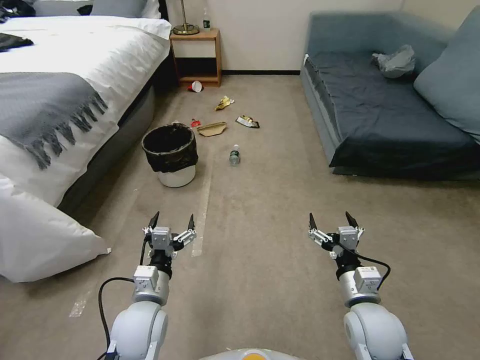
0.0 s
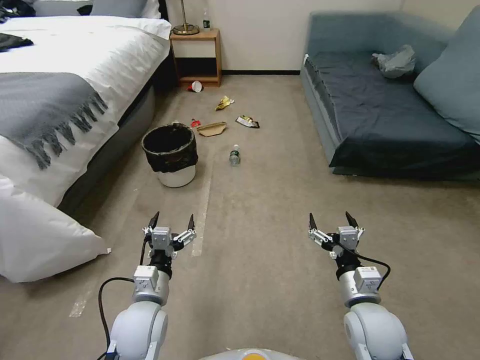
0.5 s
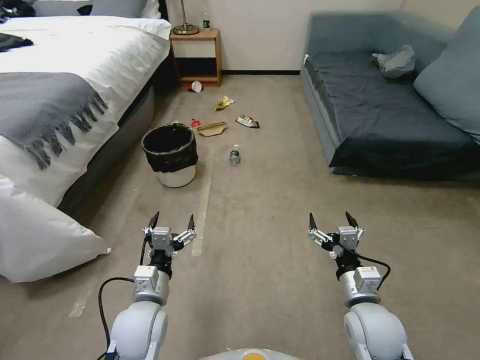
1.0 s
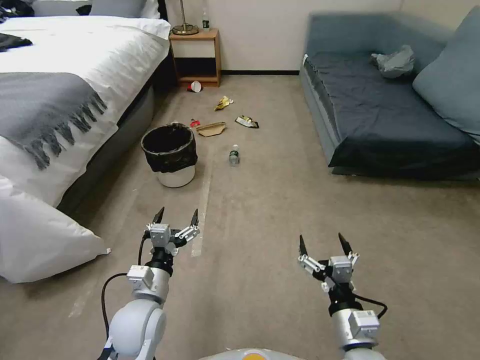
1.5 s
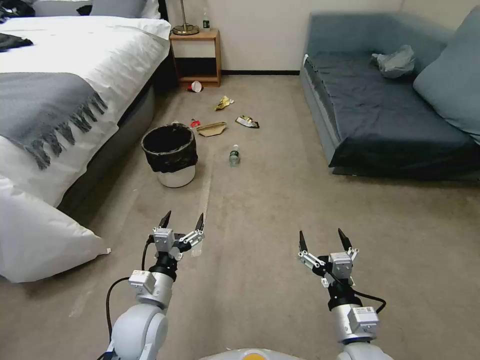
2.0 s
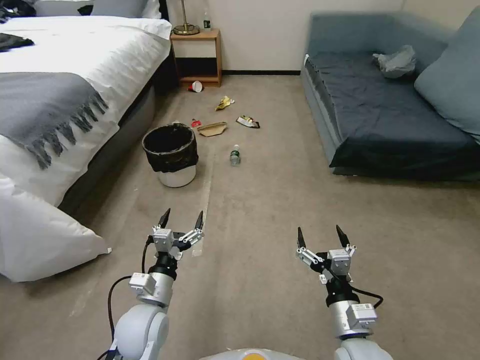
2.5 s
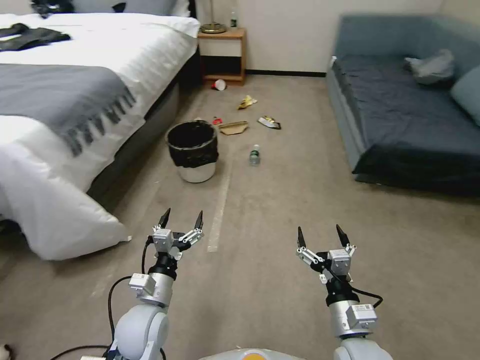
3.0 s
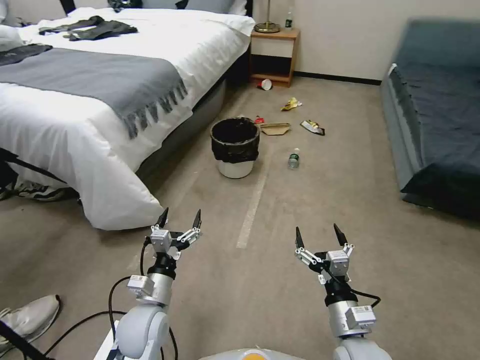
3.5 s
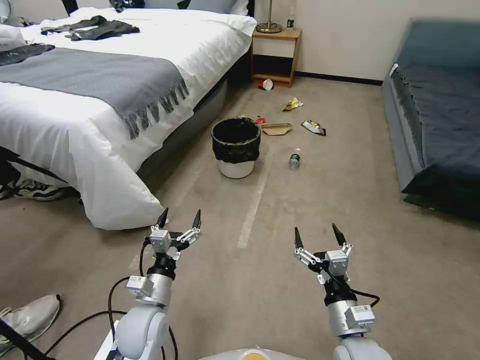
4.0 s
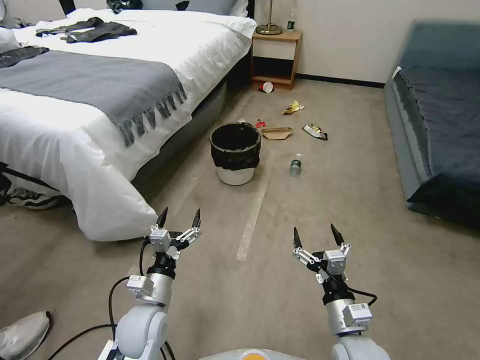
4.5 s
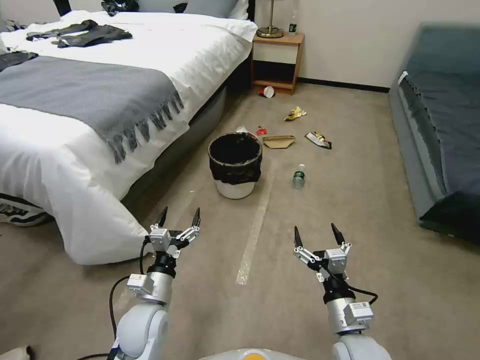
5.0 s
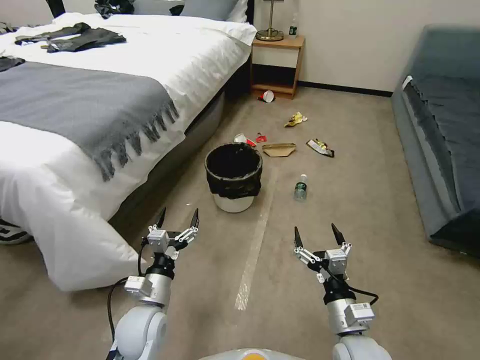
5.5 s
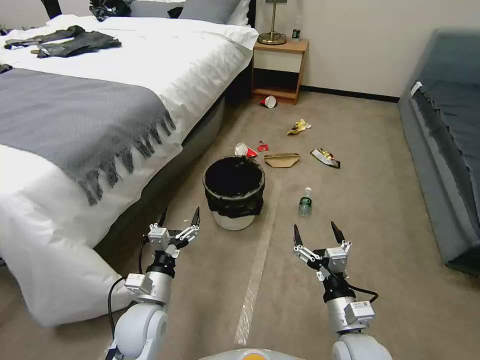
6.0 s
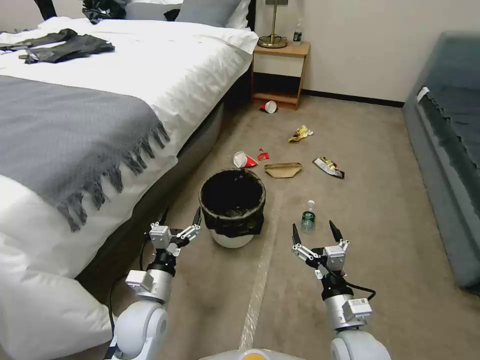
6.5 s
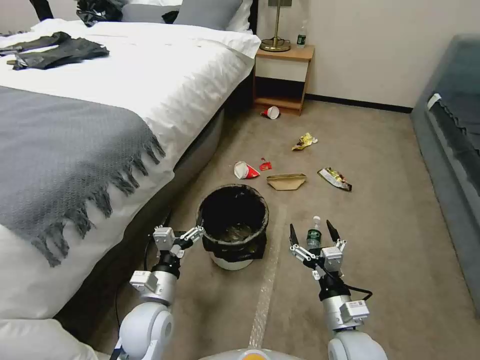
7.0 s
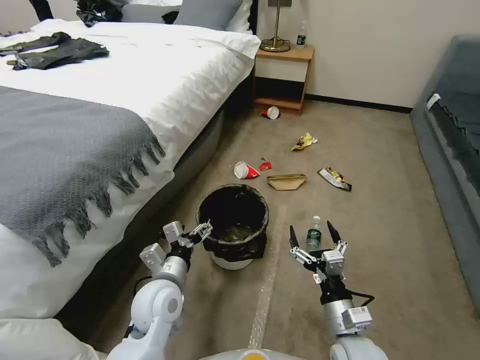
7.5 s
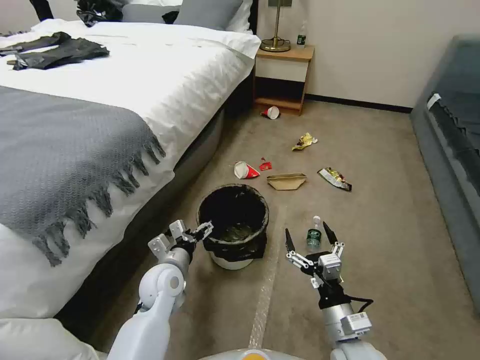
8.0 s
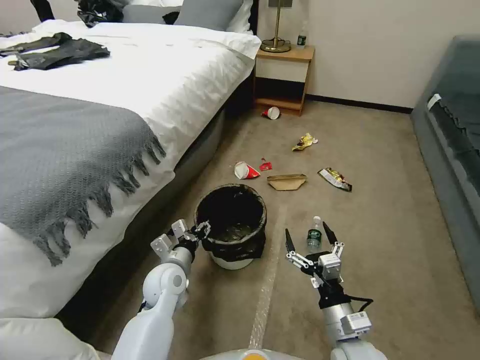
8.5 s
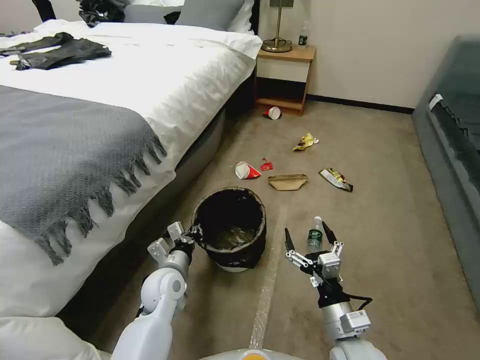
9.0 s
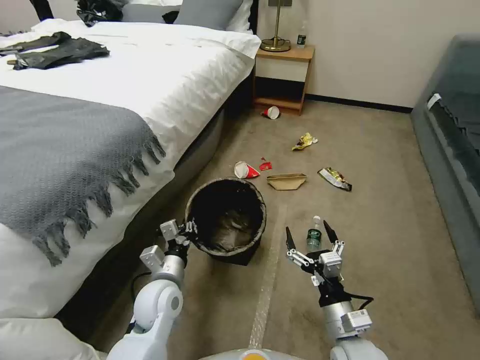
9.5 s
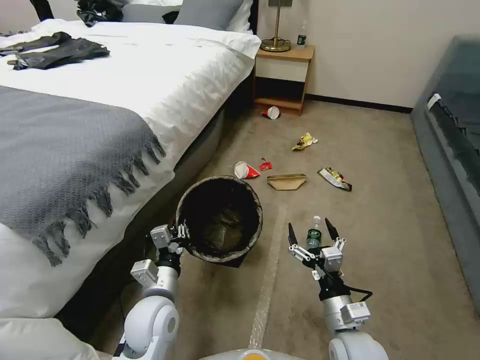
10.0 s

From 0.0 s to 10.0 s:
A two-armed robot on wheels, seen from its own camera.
Task of the whole recording: Pick up the trash can from the floor.
From 6.0 s to 8.0 s: The left gripper moves forward, roughly 10 cm.
From 8.0 s to 10.0 s: The left gripper travels backward by about 10 cm, and closes up.

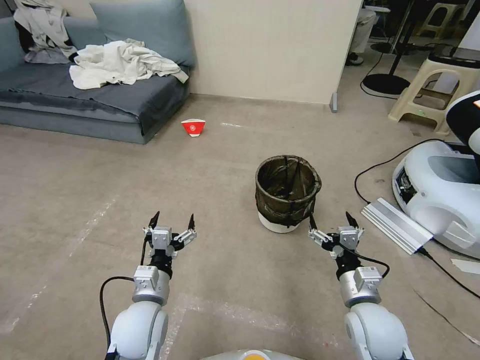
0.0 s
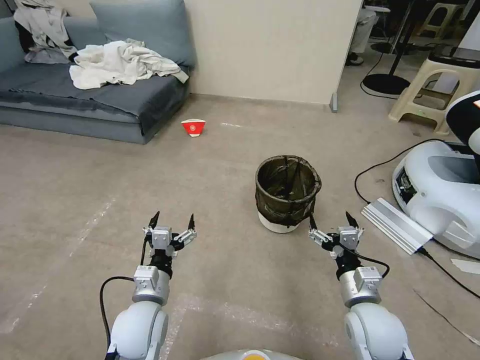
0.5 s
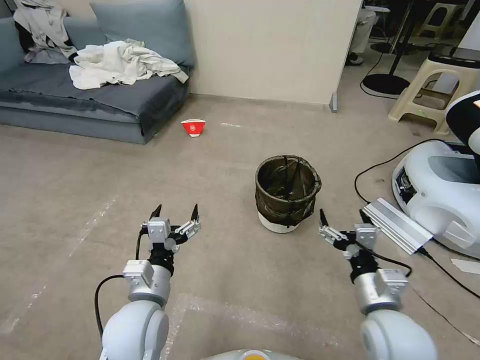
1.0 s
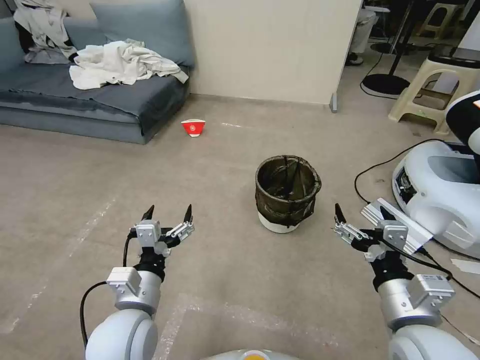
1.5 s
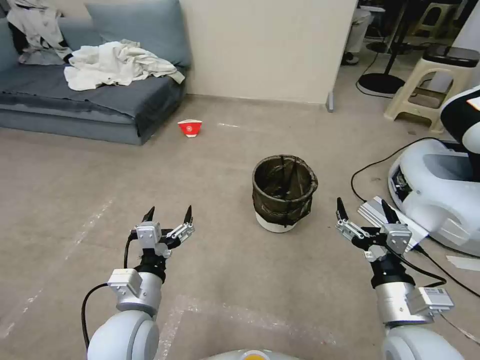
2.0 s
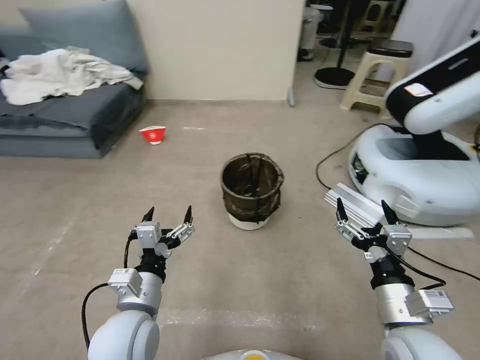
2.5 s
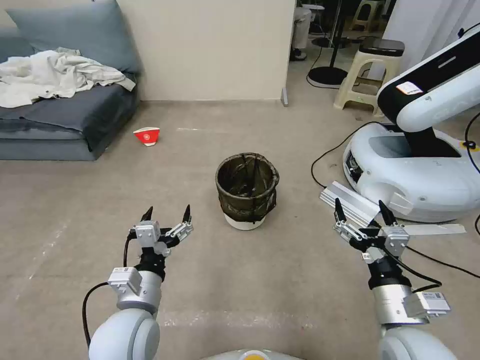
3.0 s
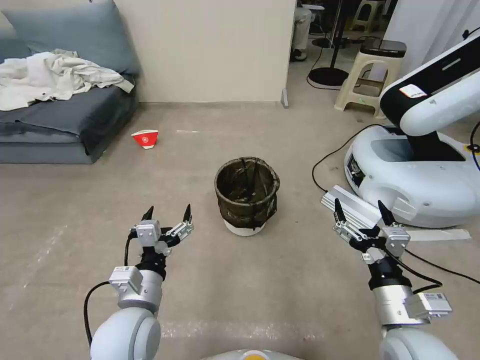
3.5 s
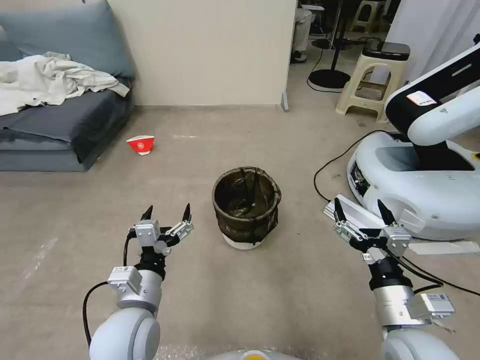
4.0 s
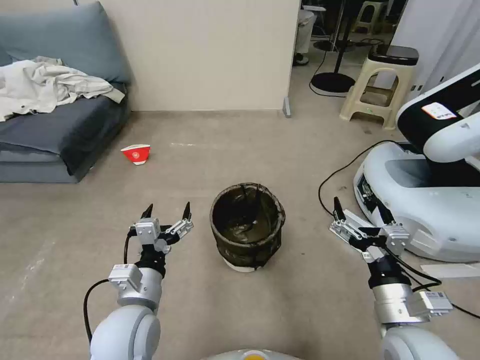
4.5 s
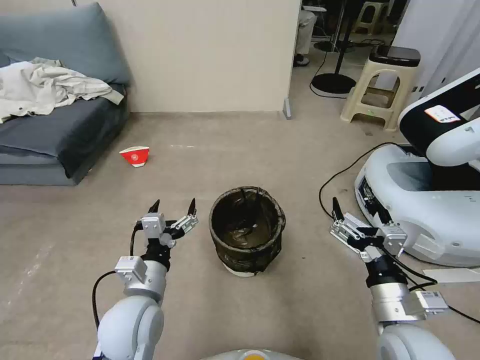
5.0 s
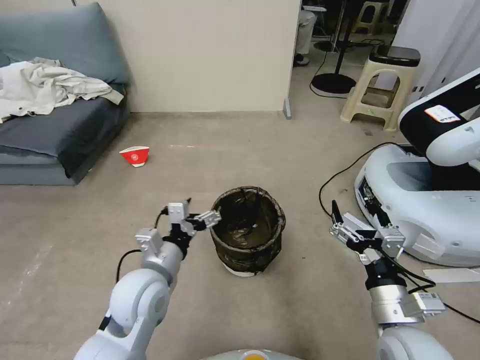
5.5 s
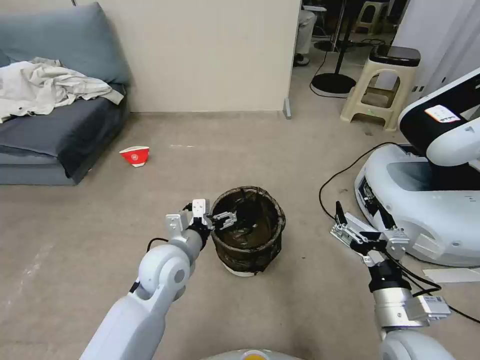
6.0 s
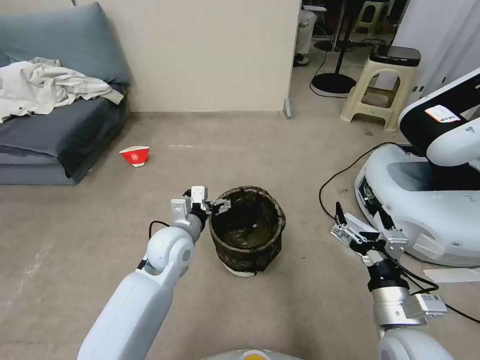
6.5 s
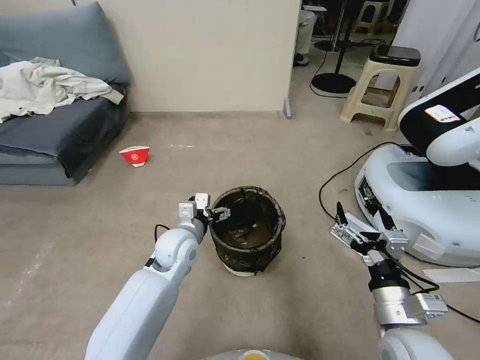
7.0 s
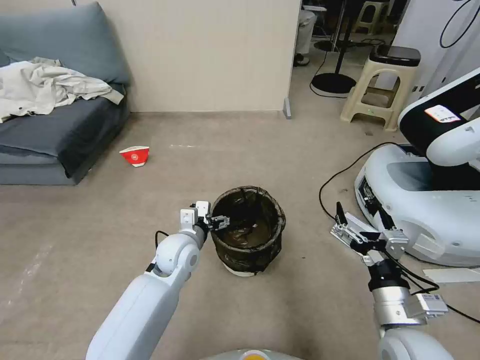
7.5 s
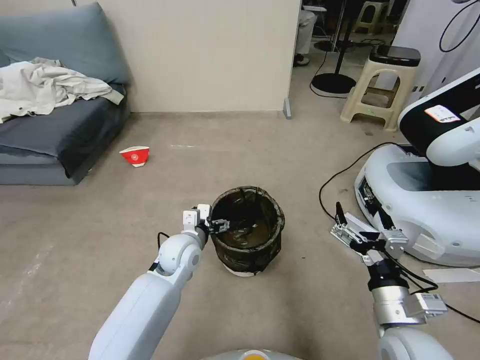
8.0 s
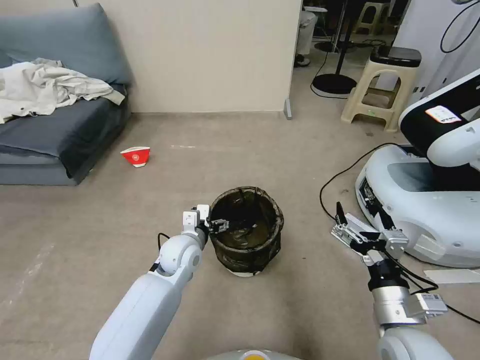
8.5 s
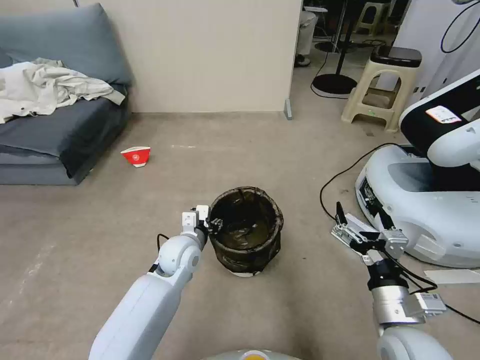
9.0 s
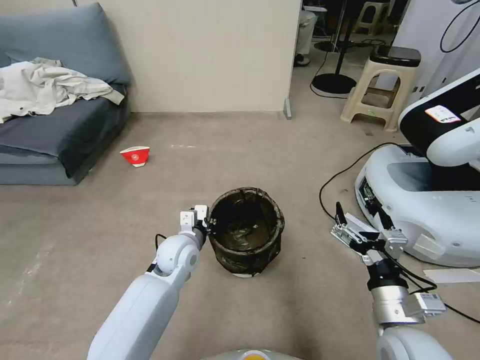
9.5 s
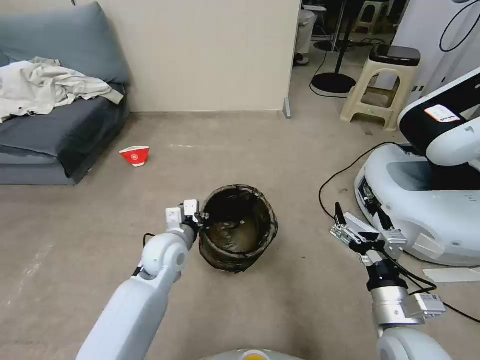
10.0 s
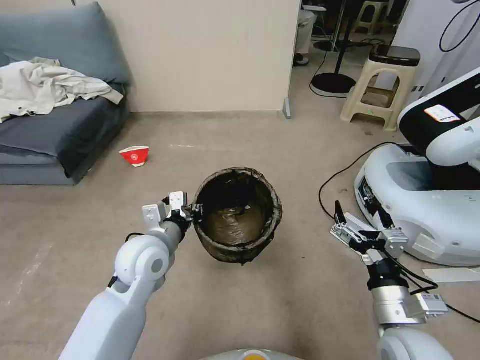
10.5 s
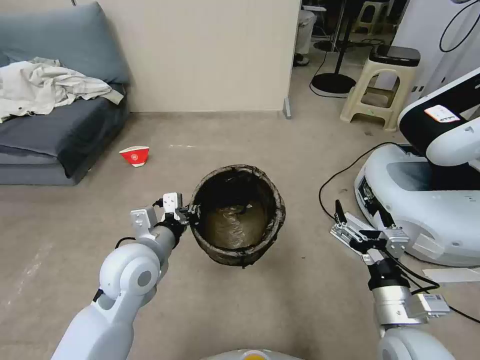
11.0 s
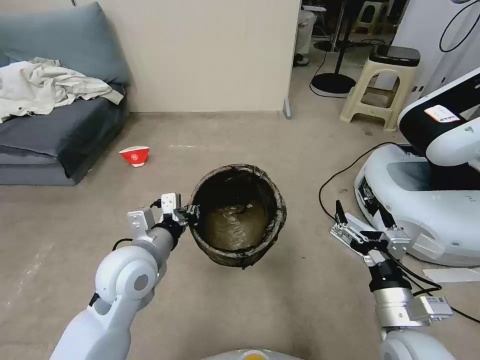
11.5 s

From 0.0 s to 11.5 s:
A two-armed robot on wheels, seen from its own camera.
Task of the whole recording: Pick up the trash can from the floor.
From 4.0 s to 6.0 s: The left gripper moves forward, about 10 cm.
From 6.0 s to 7.5 s: The left gripper moves downward and forward, some 10 cm.
From 7.5 s to 9.5 s: The left gripper closes its fingers.
From 9.5 s to 11.5 s: The left gripper is displaced upward and backward by some 15 cm.

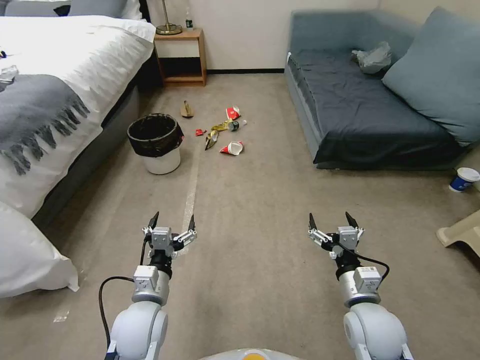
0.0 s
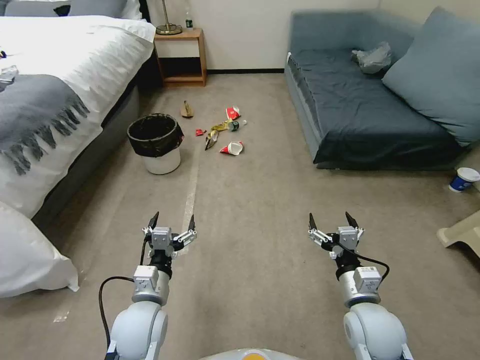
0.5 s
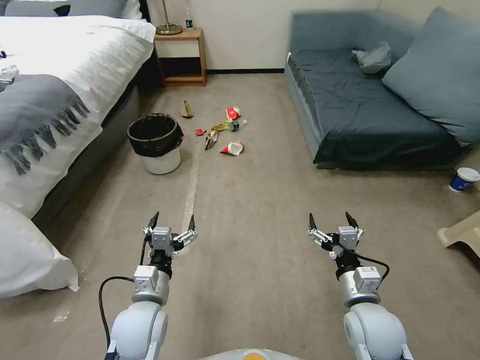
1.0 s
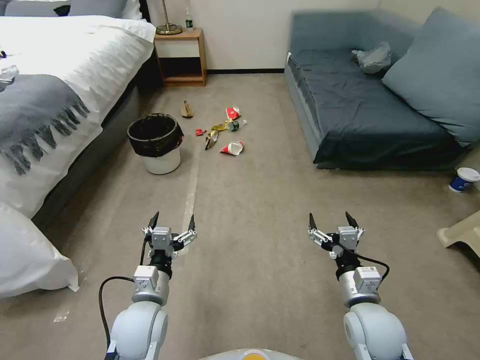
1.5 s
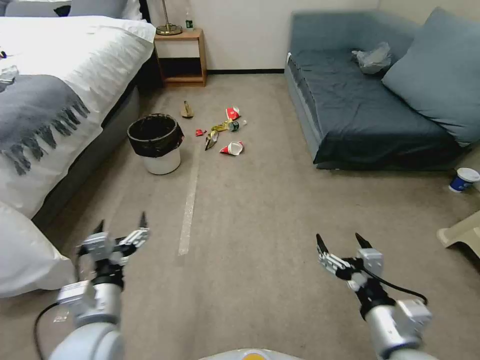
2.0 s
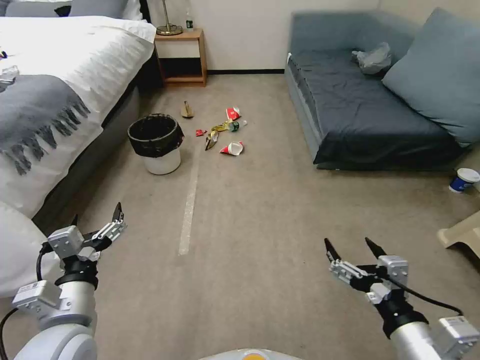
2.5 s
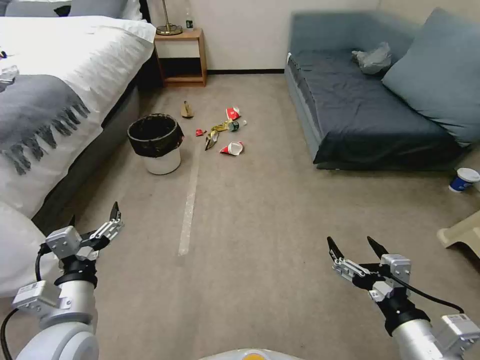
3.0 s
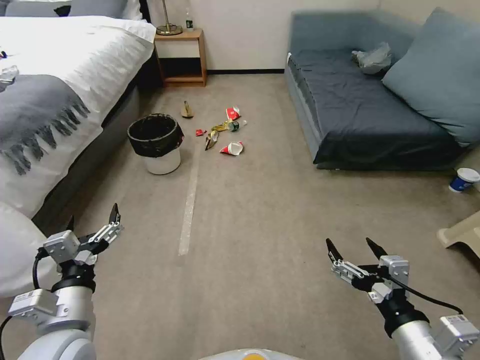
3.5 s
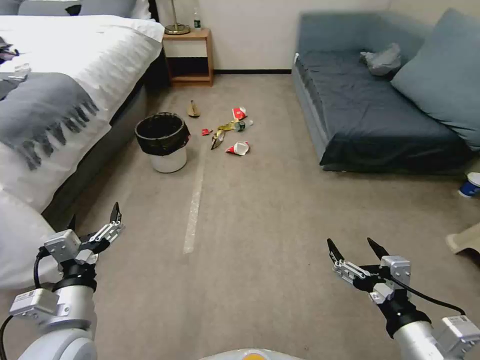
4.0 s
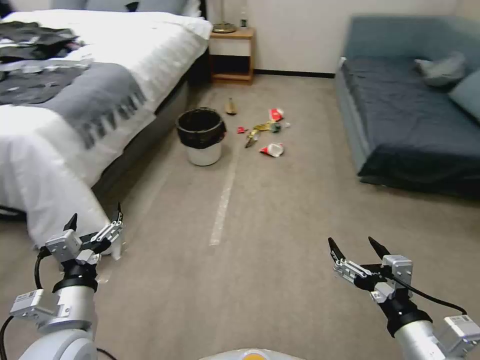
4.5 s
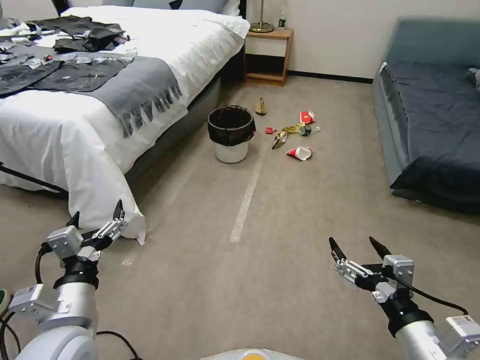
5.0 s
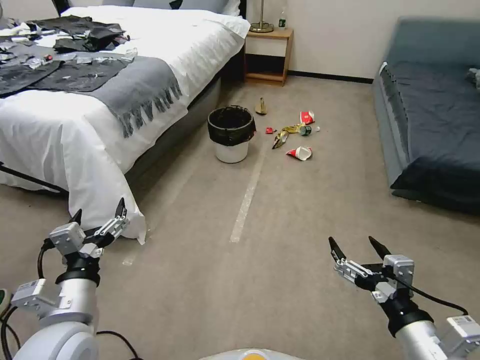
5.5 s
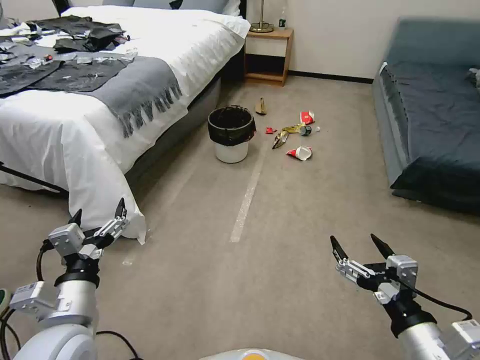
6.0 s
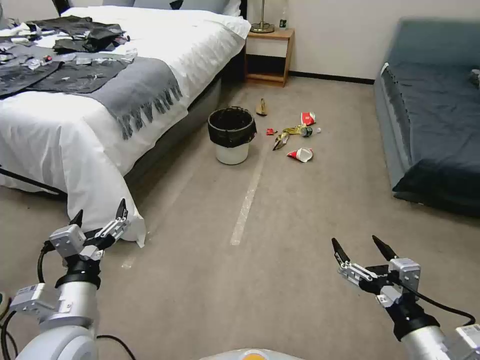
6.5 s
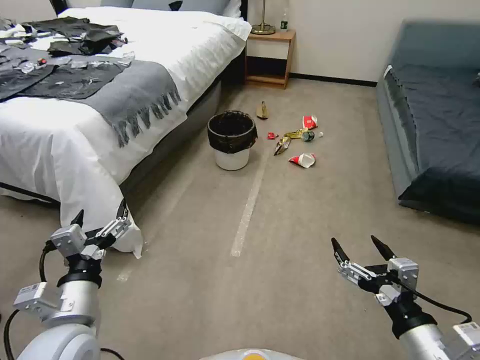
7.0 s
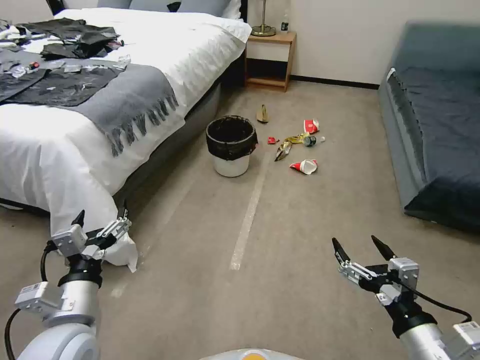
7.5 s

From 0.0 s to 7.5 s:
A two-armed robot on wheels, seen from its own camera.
Task of the whole recording: Pick up the trash can from the floor.
From 2.0 s to 4.0 s: The right gripper moves about 5 cm.
